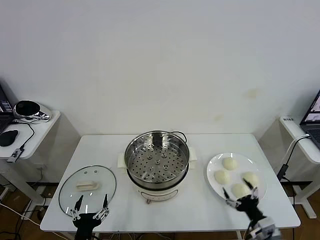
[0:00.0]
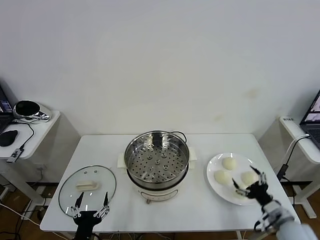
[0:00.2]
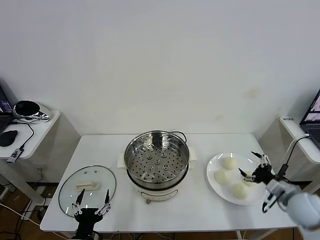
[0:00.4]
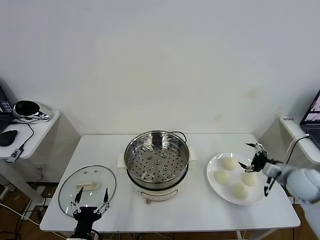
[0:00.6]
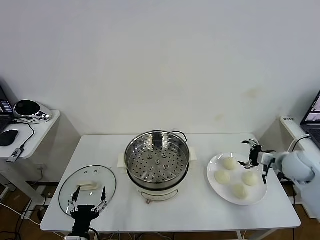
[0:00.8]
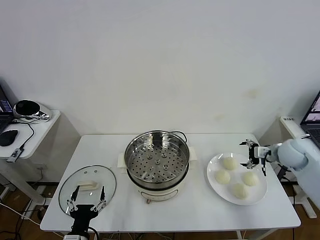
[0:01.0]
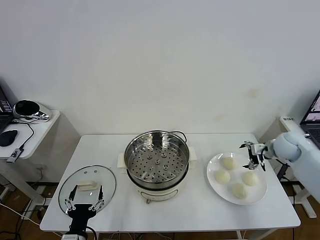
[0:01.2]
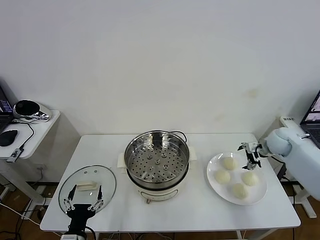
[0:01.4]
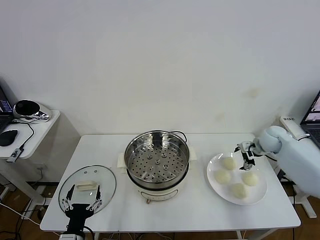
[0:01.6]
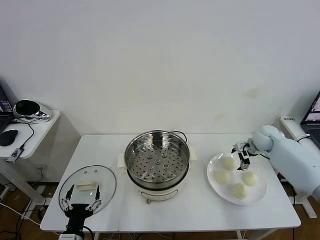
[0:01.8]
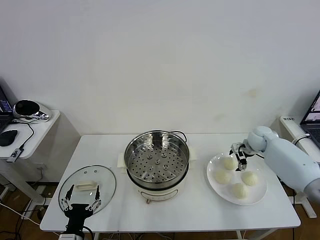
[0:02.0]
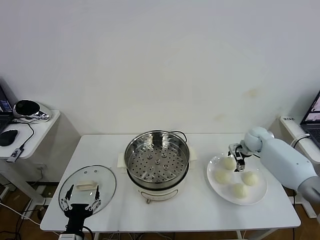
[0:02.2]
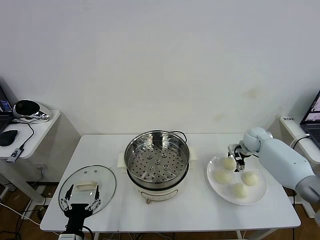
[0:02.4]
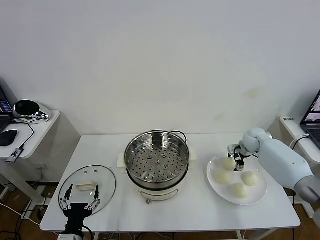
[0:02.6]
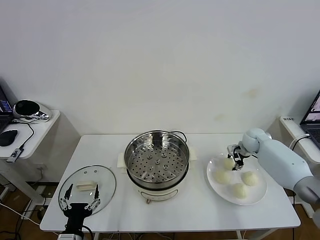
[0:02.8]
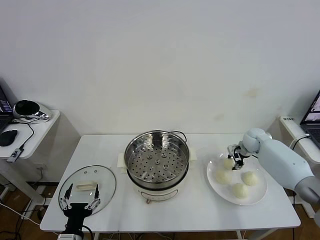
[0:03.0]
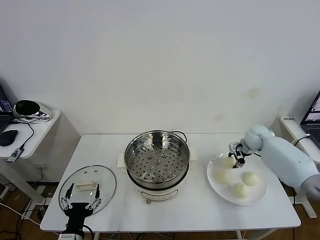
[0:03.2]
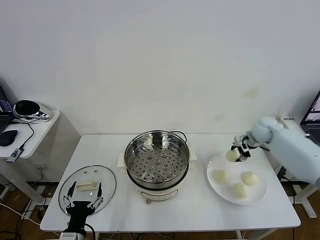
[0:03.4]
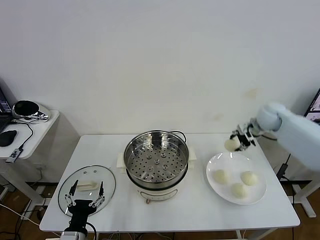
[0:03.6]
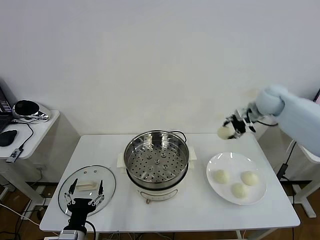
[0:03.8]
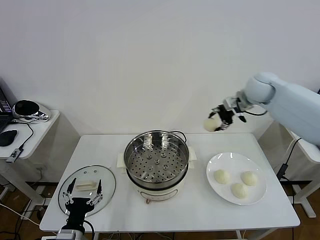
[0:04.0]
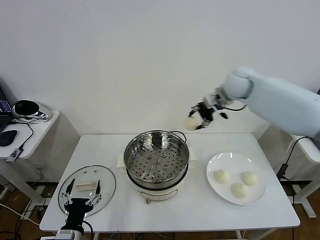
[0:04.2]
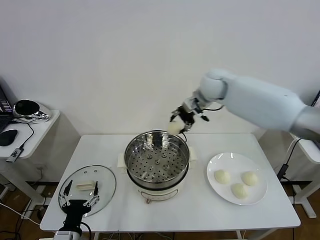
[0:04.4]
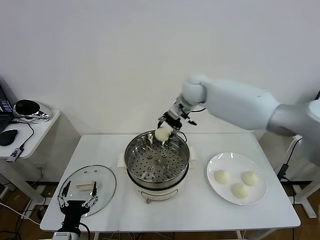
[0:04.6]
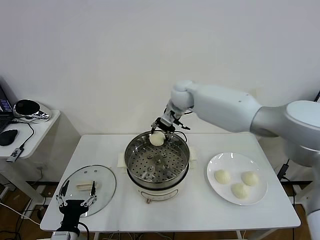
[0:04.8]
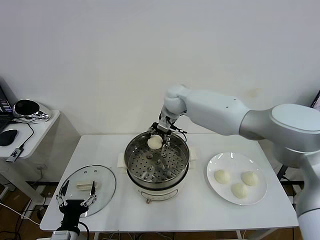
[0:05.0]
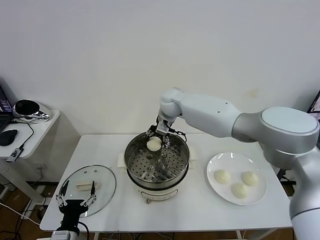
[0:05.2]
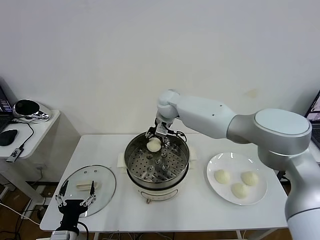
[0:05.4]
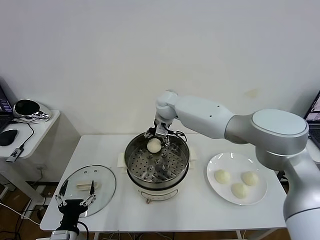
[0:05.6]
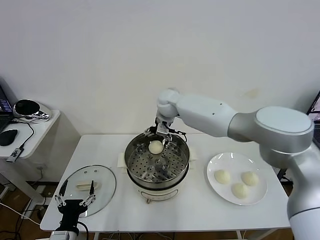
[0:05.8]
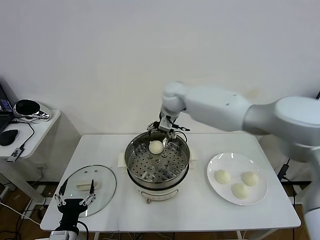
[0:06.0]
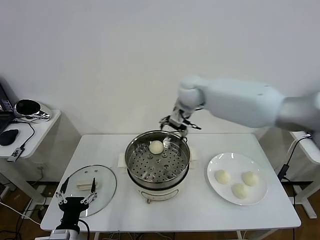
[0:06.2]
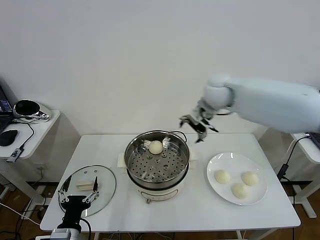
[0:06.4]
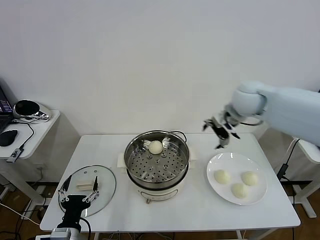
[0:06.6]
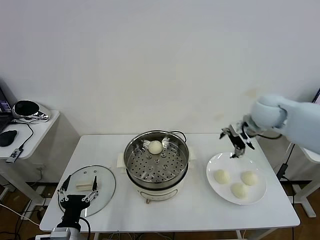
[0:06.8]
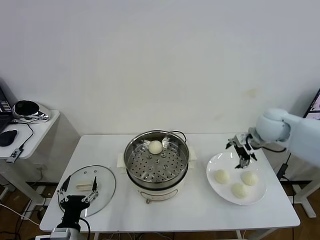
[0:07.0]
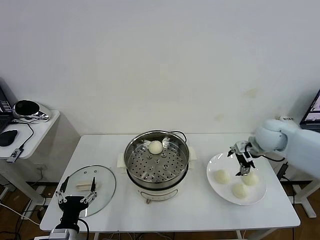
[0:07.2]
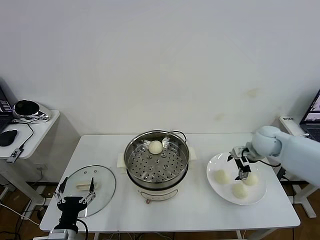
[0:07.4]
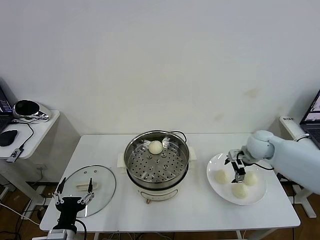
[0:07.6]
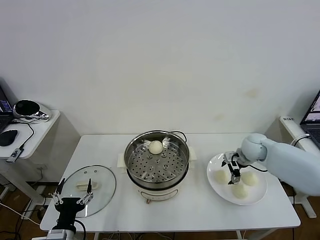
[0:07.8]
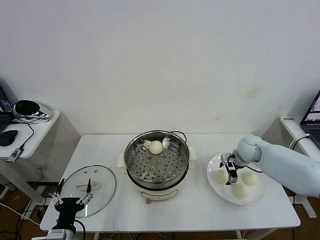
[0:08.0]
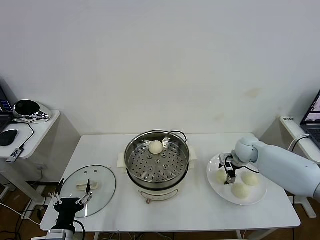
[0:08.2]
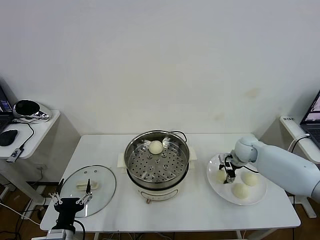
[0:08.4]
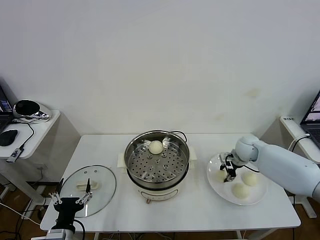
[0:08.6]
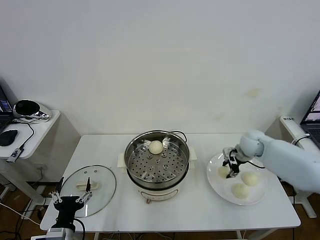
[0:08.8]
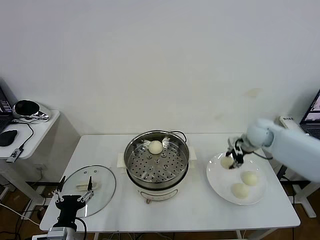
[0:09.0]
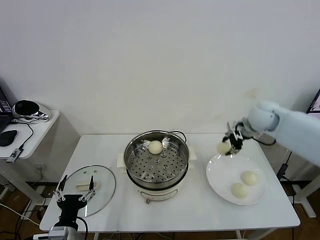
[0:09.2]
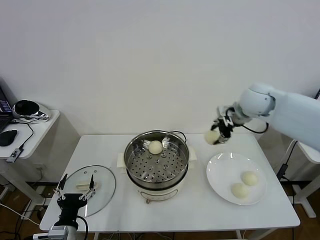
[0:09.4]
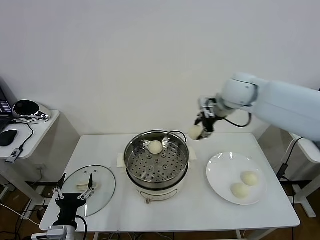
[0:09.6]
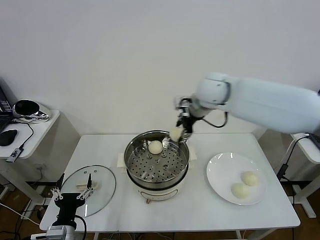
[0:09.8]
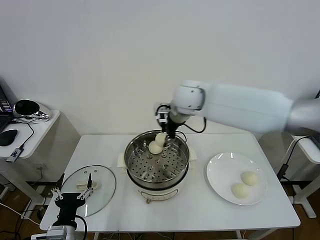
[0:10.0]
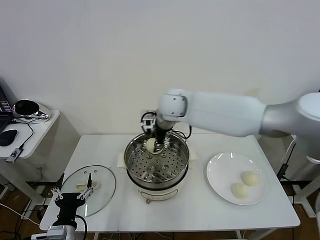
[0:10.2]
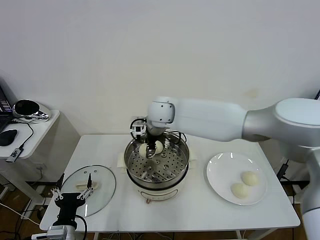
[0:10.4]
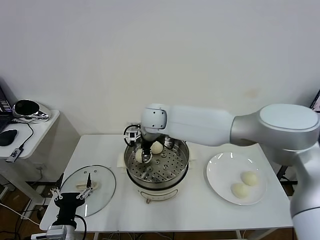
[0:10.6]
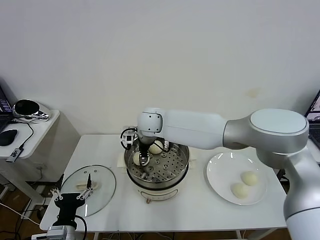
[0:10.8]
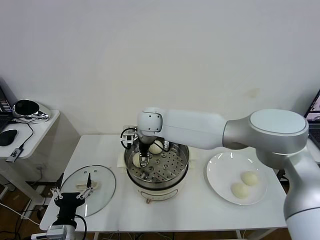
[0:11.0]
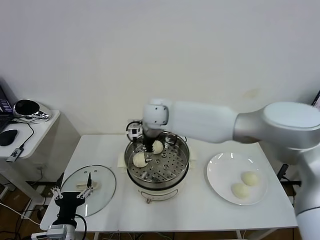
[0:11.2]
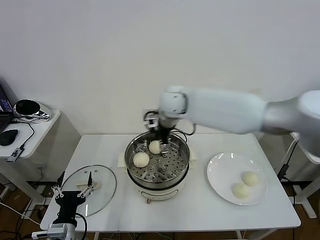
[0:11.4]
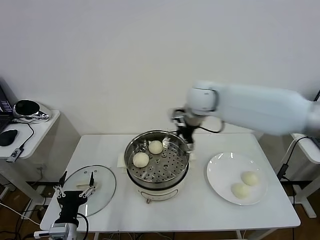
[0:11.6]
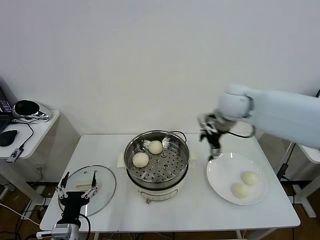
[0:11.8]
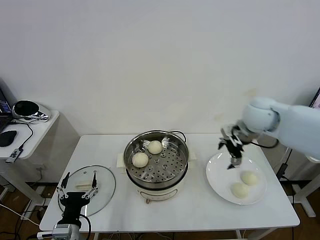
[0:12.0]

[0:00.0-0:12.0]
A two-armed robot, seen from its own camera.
Task of the whole recording: take steamed baozi put them in steamer then cover it.
Step, 0.0 to 2.8 s: Grasp the baozi in the plate with right gripper.
Step, 3.2 to 5.8 s: Place the baozi on the steamer with right gripper.
Step, 6.0 to 8.6 s: Grasp the baozi in the plate with right gripper.
Step, 8.8 to 11.2 s: Place the baozi on the steamer with right gripper.
1.6 to 3.0 s: The right gripper shifts by roughly 5 cm, and closes up.
3.0 to 4.4 s: The right gripper travels to the left and upward by about 35 cm.
4.4 to 6.0 s: The right gripper shifts about 5 cm to the left, and opens up.
6.0 to 7.6 s: The right gripper shifts about 30 cm to the right and downward.
7.6 to 9.0 s: The right gripper heads upward, covering roughly 5 cm, and closes up.
9.0 to 10.4 s: The right gripper is displaced to the left by about 35 cm.
10.4 to 12.0 s: The right gripper travels to the right by approximately 30 cm, and opens its fingers.

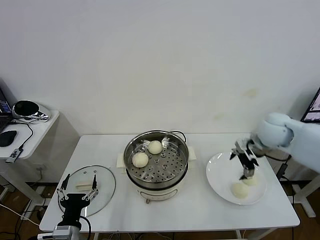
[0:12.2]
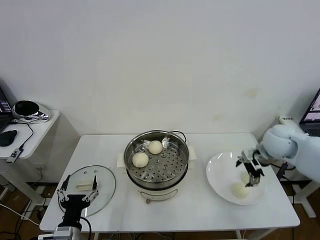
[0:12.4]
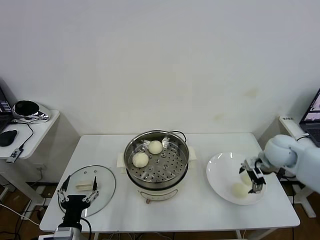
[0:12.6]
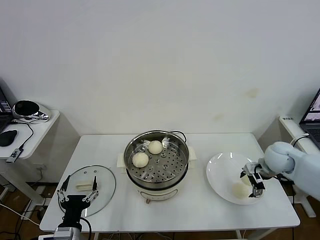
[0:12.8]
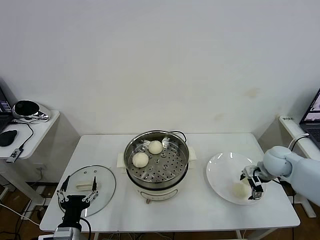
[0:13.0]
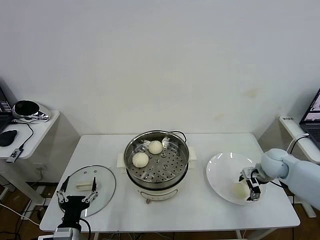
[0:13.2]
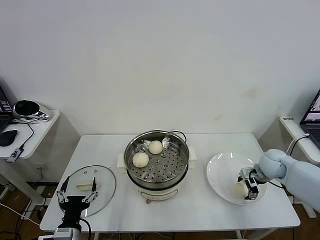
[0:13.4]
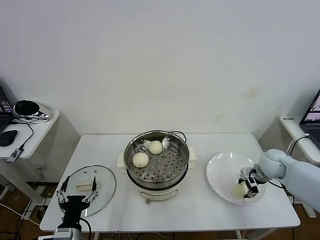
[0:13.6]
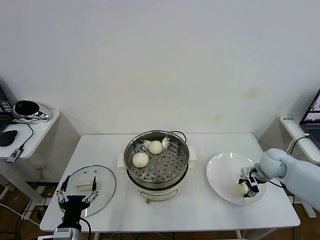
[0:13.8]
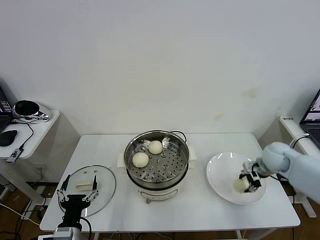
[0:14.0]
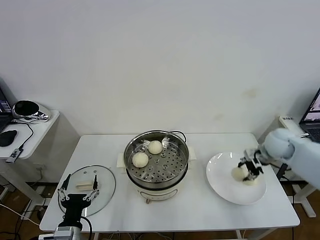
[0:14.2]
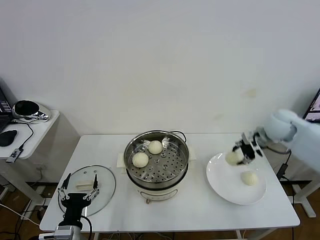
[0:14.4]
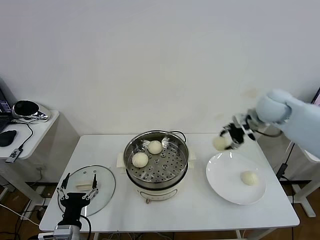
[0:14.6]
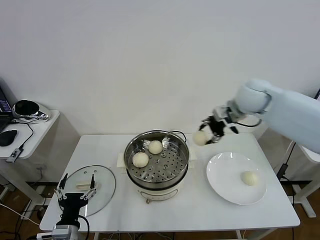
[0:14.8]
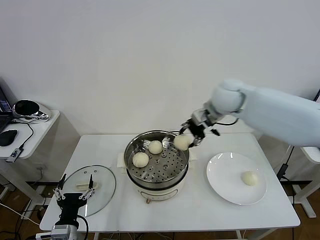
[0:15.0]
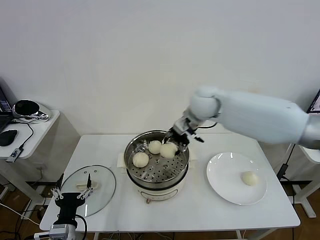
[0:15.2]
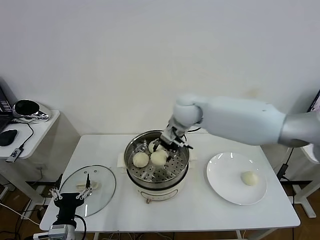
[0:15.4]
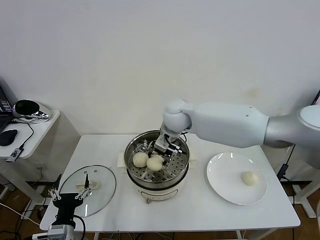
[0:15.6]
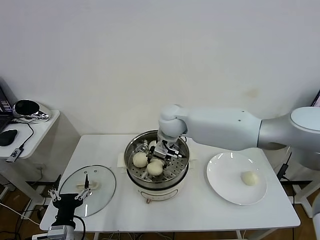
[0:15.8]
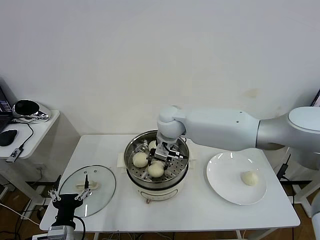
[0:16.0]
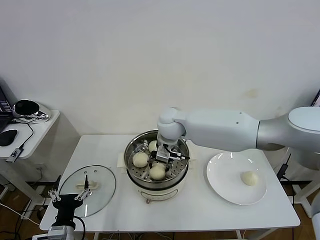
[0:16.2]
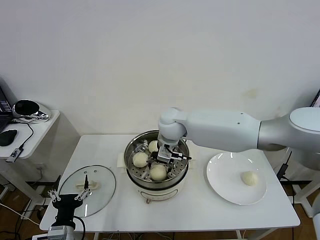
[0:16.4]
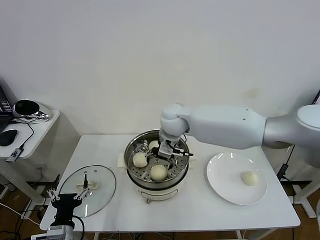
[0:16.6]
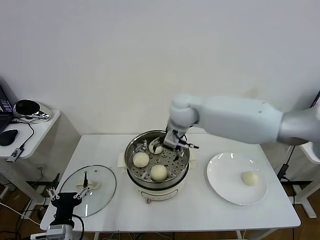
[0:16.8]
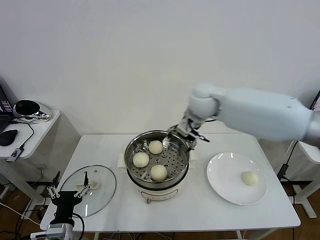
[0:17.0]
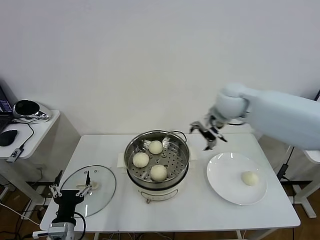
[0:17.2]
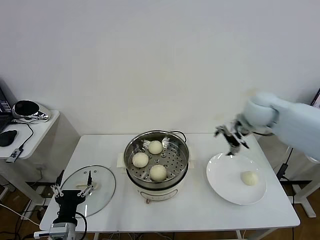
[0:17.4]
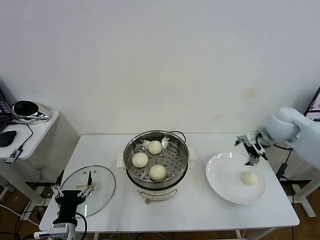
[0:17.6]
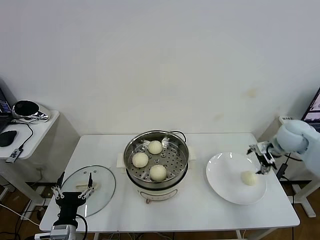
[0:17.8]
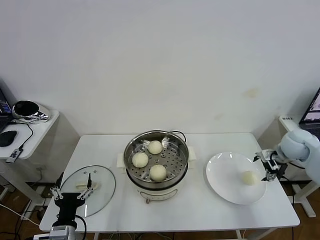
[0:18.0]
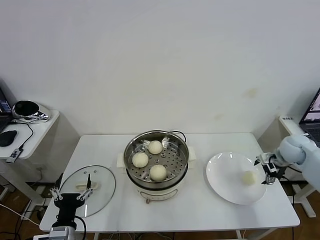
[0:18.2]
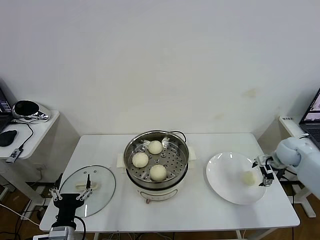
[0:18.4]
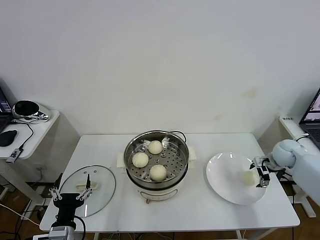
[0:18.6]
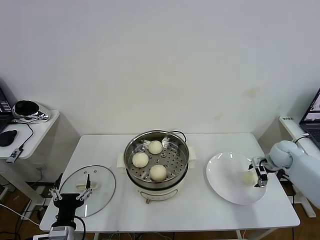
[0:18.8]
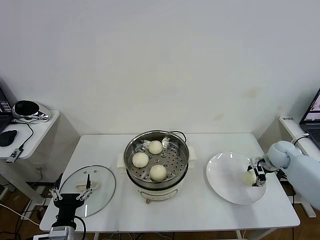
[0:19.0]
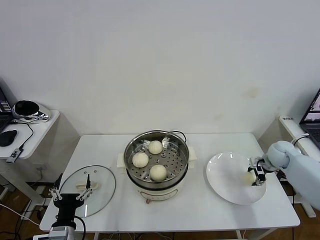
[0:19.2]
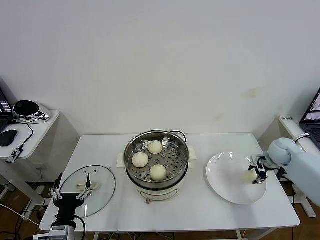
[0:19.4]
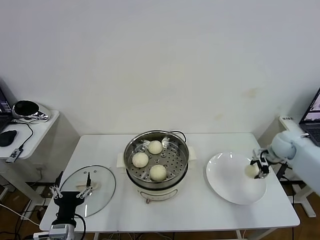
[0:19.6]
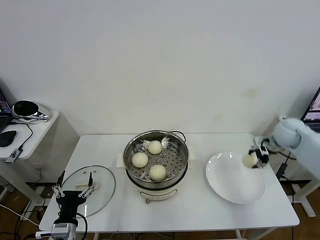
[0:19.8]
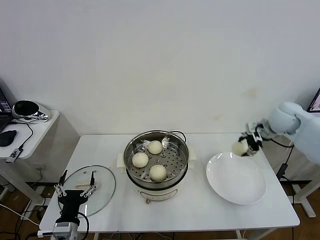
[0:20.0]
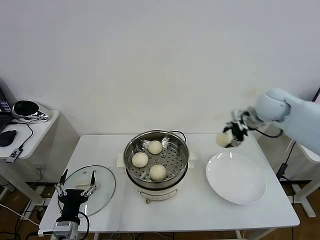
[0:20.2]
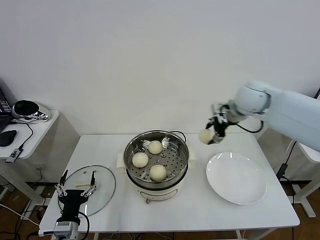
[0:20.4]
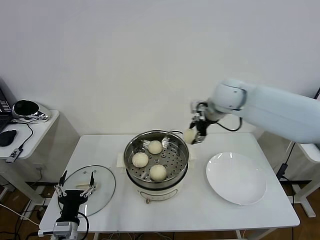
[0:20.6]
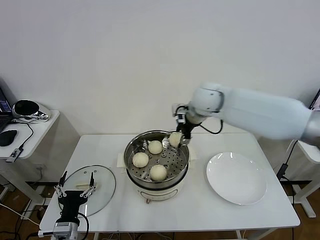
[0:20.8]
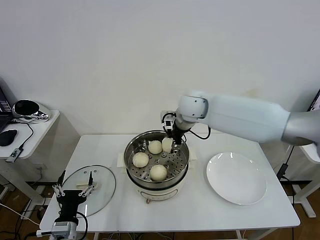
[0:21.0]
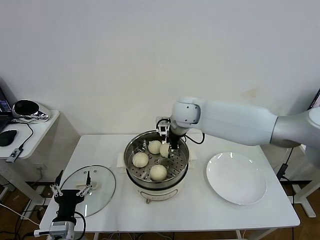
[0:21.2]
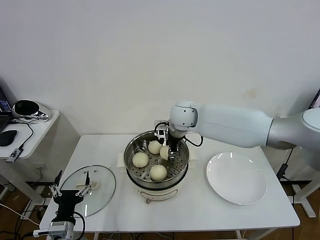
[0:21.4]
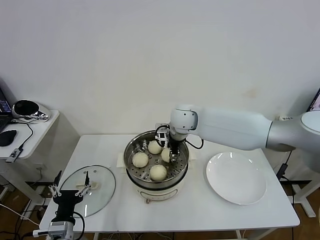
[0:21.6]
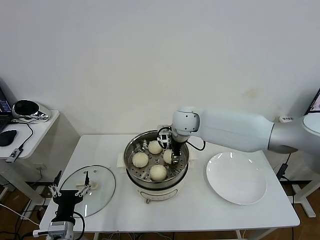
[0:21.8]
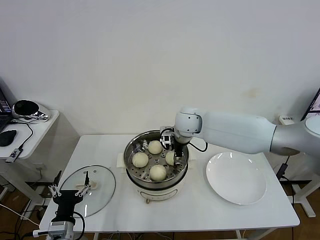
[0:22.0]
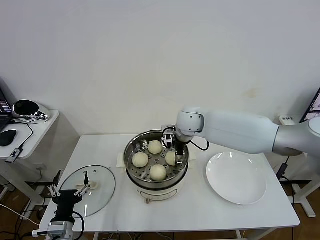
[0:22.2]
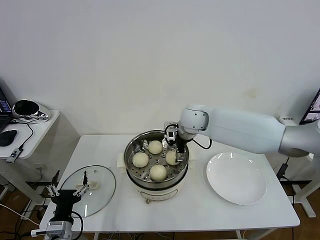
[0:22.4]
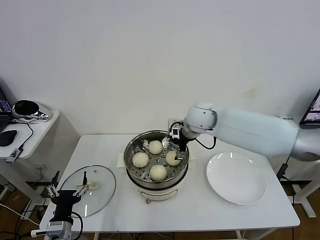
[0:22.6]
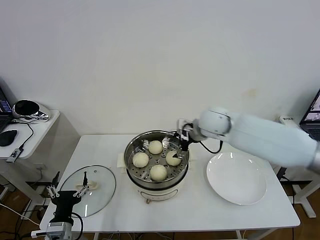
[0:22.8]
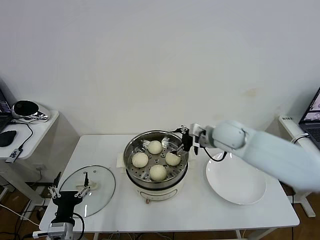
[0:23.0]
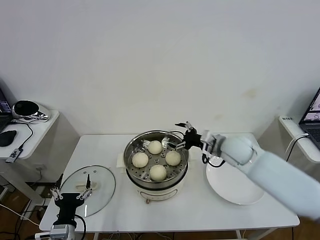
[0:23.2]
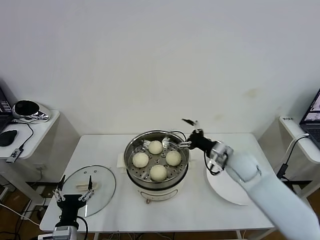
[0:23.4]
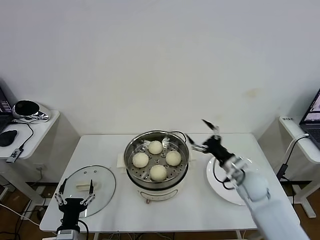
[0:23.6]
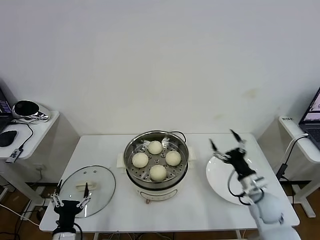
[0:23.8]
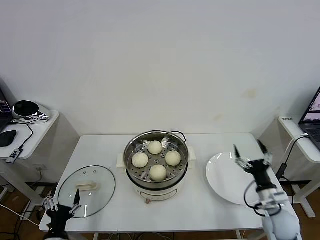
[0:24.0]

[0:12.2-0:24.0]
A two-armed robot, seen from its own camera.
Task of the whole recording: take steamed baozi put them in steamer then cover it.
Step, 12.2 to 13.8 s: Grasp the baozi in the plate with right gripper.
Step, 14.0 to 16.6 s: Place the baozi on the steamer with right gripper.
Step, 16.8 to 19.2 s: Grasp the baozi in the plate with right gripper.
Step, 19.4 to 22.2 s: Place the baozi on the steamer with right gripper.
12.2 to 13.6 s: The right gripper is displaced downward by roughly 15 cm, and closes its fingers.
13.6 to 15.2 s: The right gripper travels to the left and upward by some 35 cm.
15.2 to 16.6 s: The right gripper shifts roughly 5 cm to the left, and opens.
16.6 to 18.2 s: The right gripper goes about 40 cm to the right.
18.2 to 19.6 s: The right gripper closes.
19.6 to 21.0 s: The right gripper moves to the left, about 35 cm.
21.0 to 22.6 s: The right gripper opens.
22.6 to 24.0 s: The left gripper heads downward, covering about 5 cm, while the right gripper heads backward, to the right and downward, covering some 40 cm.
